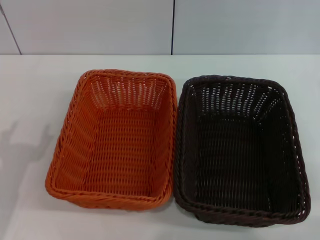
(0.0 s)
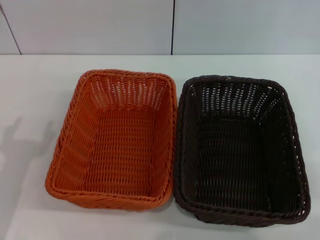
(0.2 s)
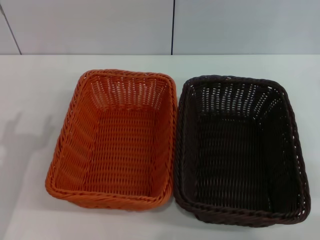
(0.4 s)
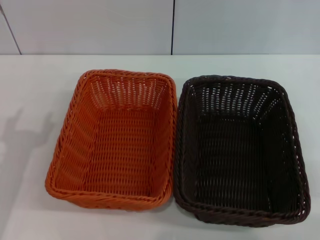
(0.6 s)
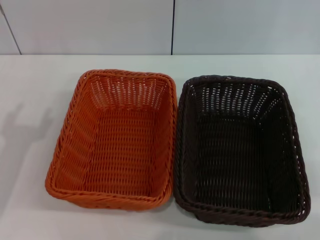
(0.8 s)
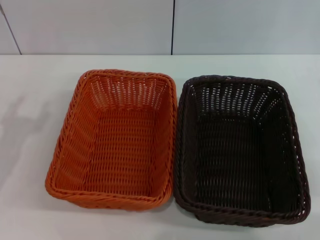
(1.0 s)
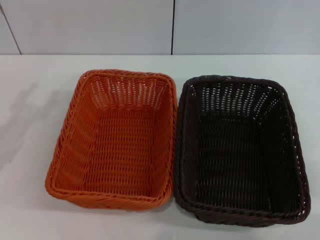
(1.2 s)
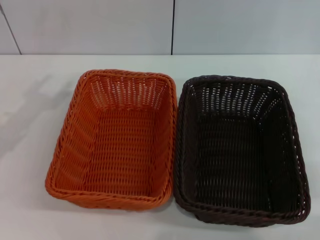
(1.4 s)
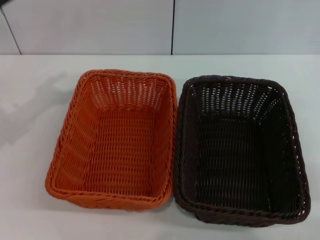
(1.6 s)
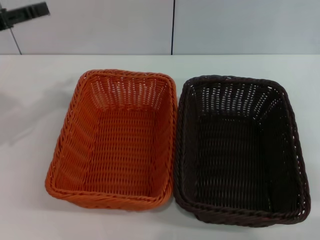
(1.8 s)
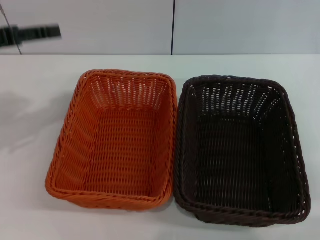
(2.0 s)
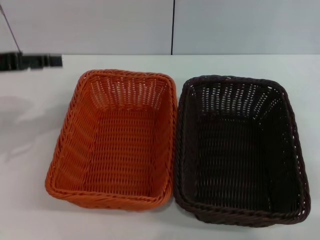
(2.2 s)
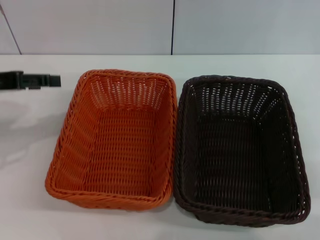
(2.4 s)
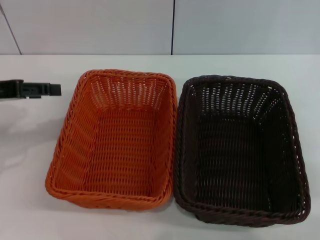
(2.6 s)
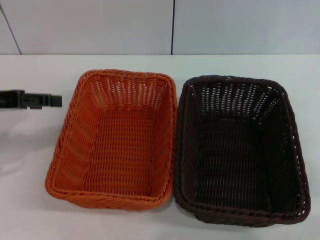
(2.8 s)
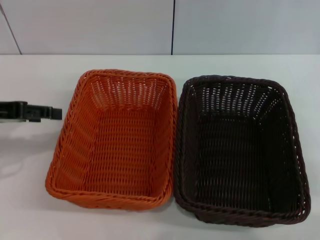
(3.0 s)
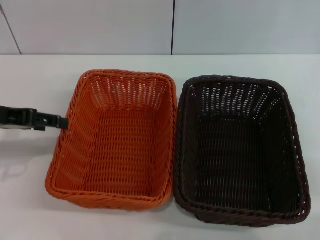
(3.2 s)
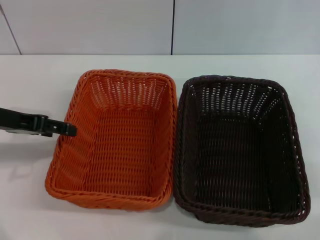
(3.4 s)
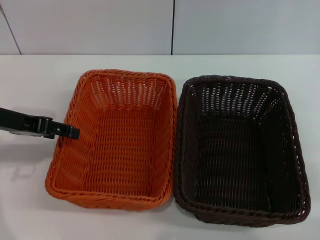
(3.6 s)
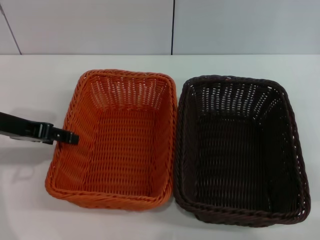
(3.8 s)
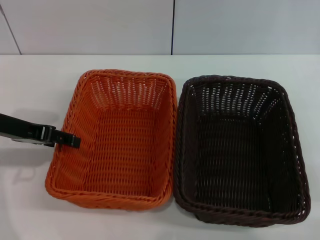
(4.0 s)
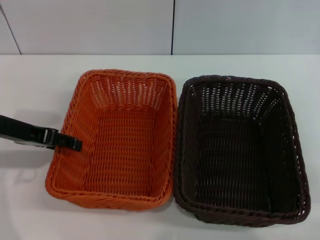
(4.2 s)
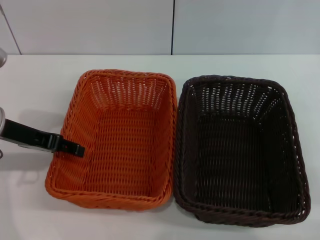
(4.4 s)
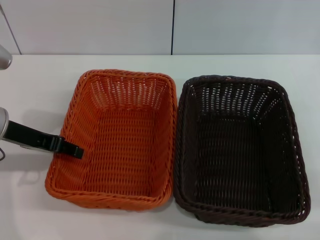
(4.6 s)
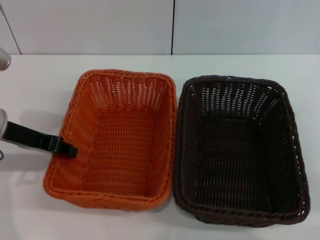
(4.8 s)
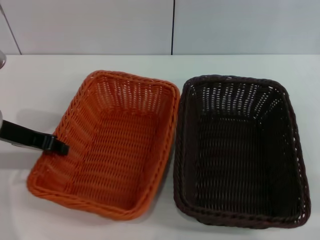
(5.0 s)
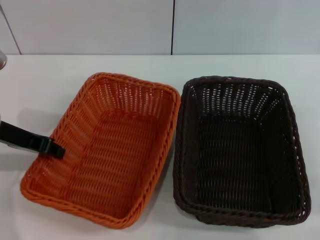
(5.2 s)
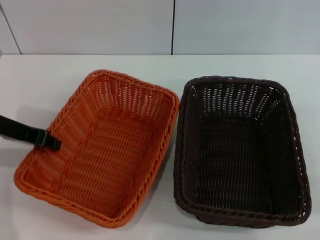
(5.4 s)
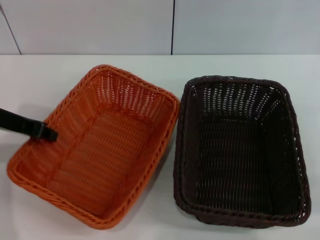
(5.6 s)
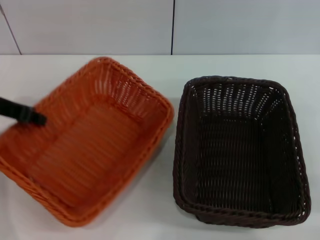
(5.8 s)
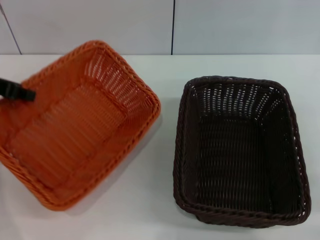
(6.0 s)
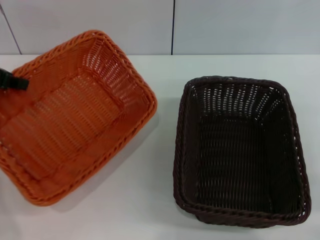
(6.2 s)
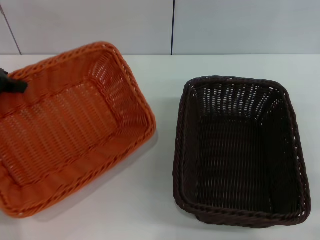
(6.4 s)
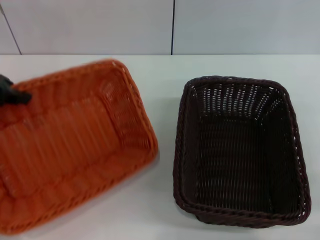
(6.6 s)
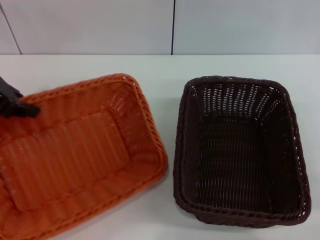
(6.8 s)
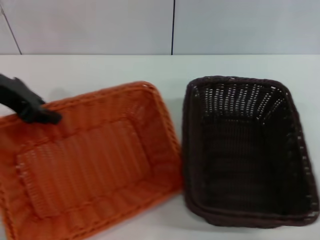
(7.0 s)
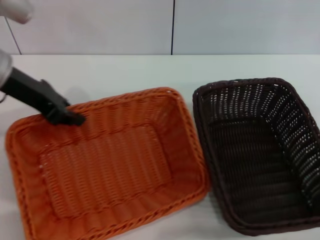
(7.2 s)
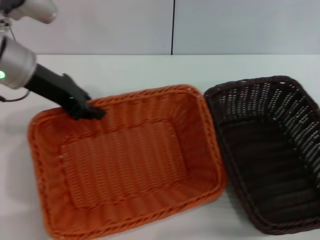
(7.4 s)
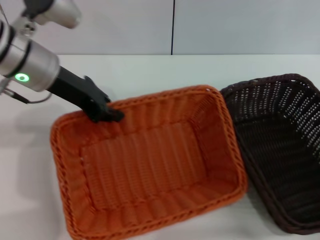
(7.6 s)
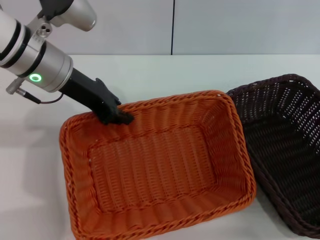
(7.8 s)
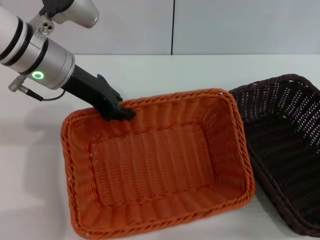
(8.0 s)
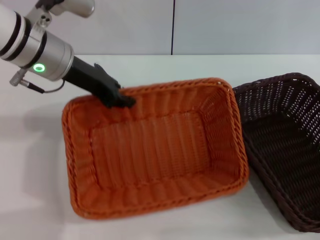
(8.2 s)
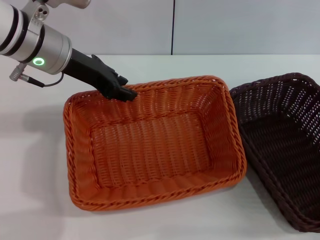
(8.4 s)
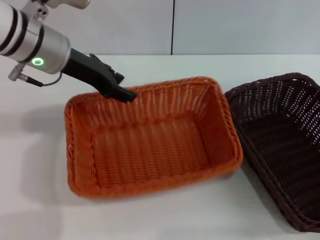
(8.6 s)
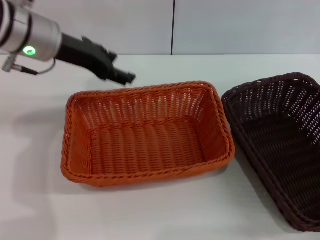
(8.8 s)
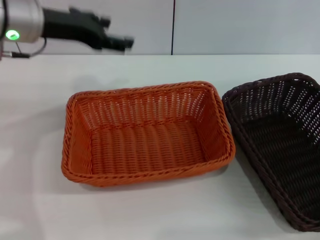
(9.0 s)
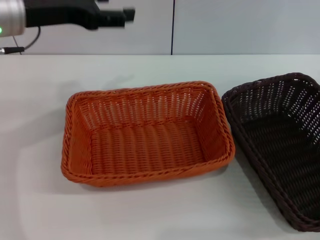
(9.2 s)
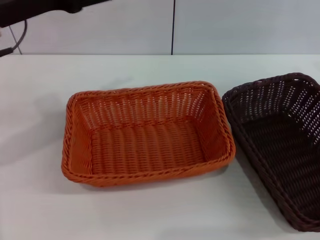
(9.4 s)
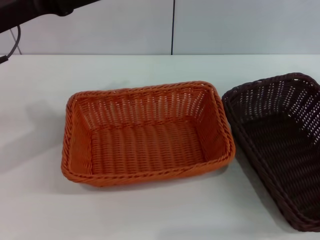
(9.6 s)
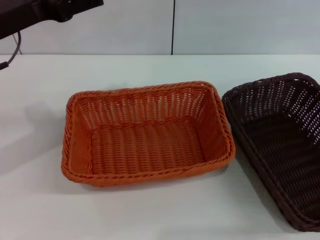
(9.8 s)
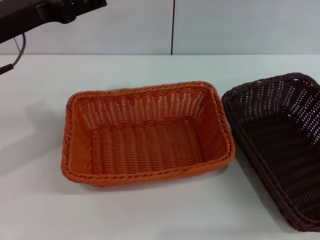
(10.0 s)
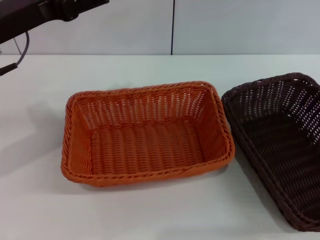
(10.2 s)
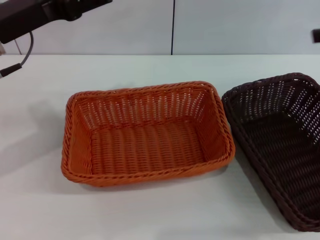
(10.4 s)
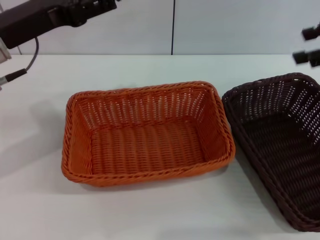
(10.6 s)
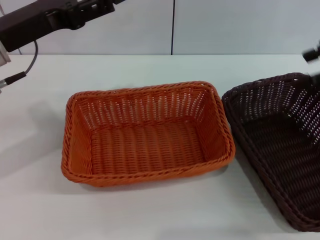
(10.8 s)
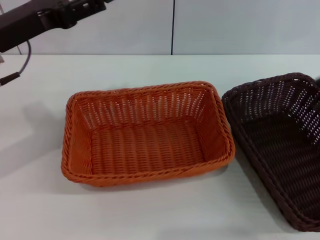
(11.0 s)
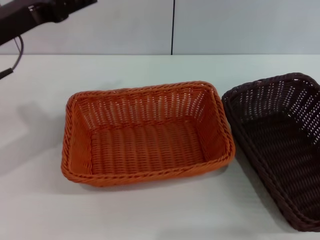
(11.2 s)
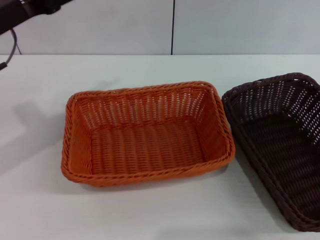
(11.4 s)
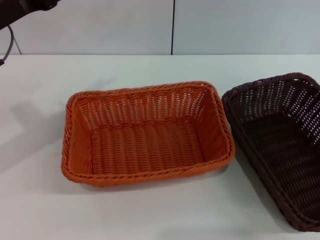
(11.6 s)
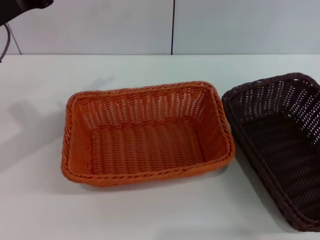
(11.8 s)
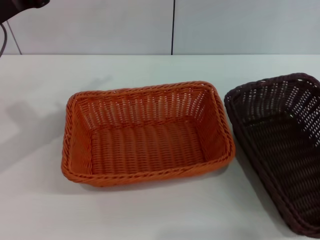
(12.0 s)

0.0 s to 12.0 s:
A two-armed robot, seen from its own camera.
Step, 0.0 to 6.2 s: Pick up the light basket with the left gripper.
Step, 6.4 to 8.6 s: Place the light basket in the center of view with the left gripper.
3.0 to 4.4 s: The left gripper is displaced to the right by roughly 5 cm.
4.4 to 6.0 s: The left gripper moves upward, about 10 cm, and closes up.
6.0 to 7.6 s: The left gripper moves to the right, approximately 10 cm.
7.6 to 9.0 s: The left gripper opens its fingers.
9.0 to 10.4 s: The left gripper moves backward, roughly 5 cm. Meanwhile the right gripper is displaced upward by some 15 cm.
10.4 to 12.0 s: The right gripper goes approximately 10 cm downward and to the left.

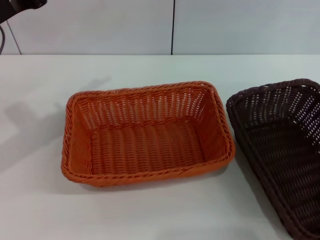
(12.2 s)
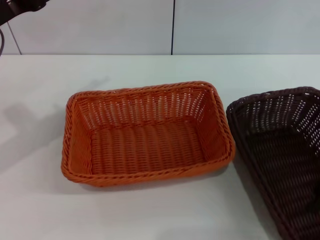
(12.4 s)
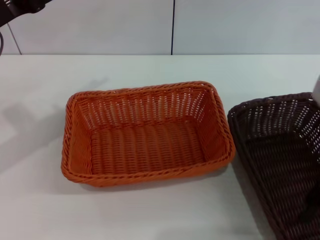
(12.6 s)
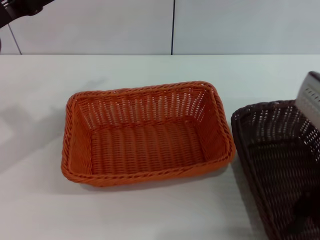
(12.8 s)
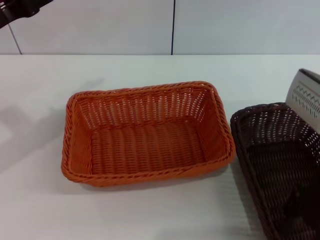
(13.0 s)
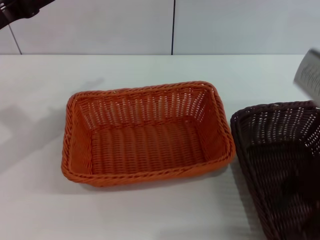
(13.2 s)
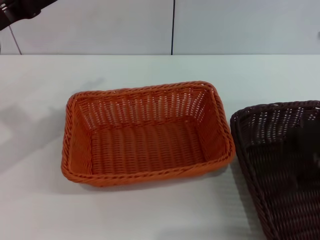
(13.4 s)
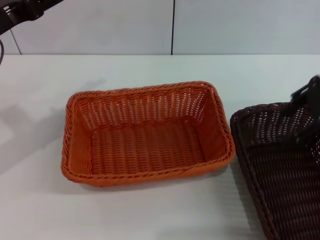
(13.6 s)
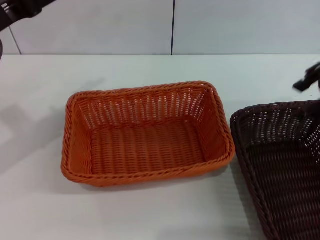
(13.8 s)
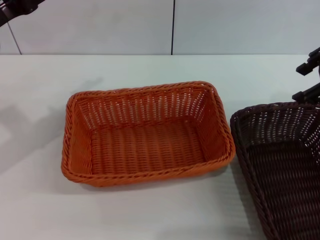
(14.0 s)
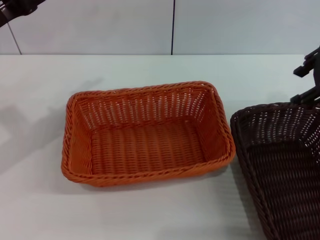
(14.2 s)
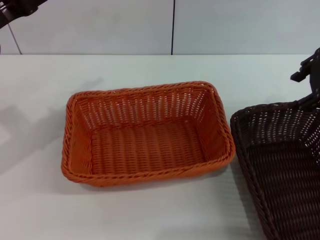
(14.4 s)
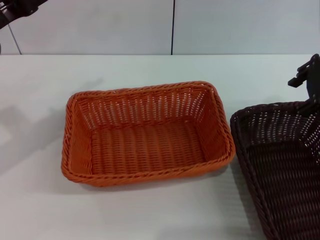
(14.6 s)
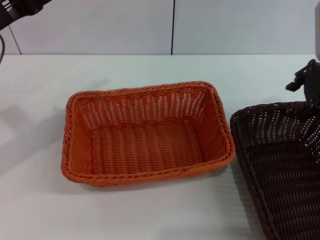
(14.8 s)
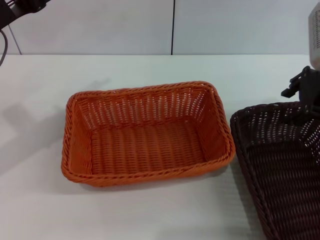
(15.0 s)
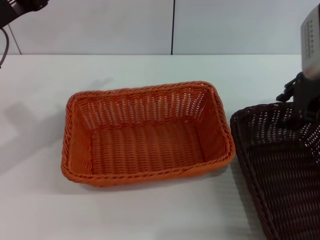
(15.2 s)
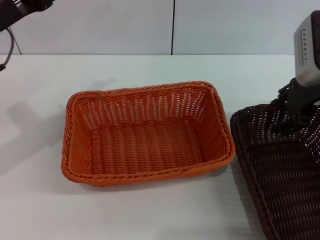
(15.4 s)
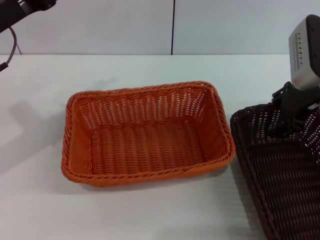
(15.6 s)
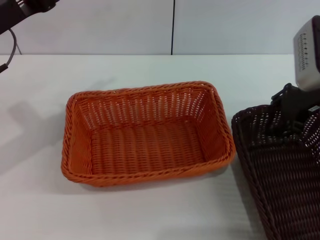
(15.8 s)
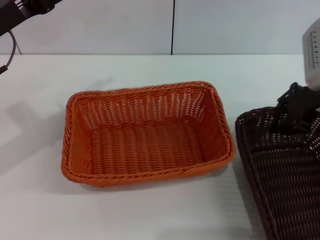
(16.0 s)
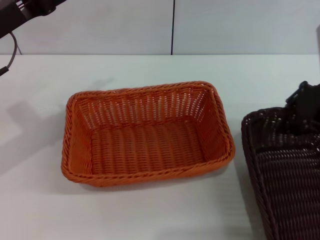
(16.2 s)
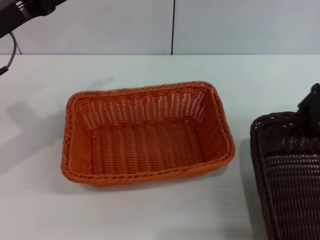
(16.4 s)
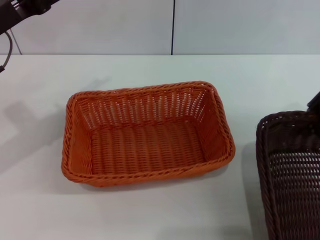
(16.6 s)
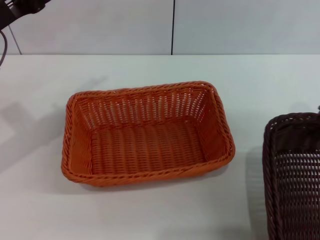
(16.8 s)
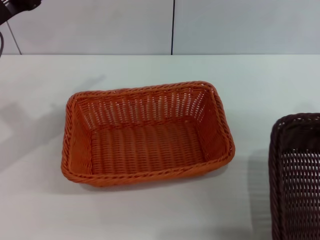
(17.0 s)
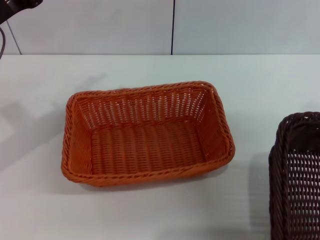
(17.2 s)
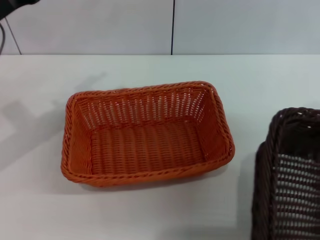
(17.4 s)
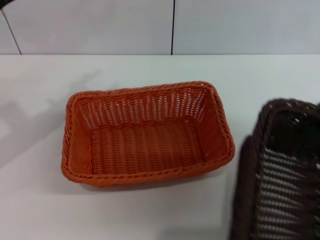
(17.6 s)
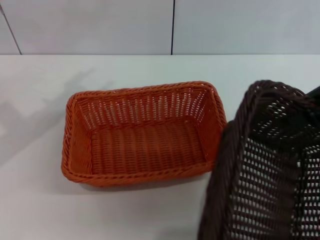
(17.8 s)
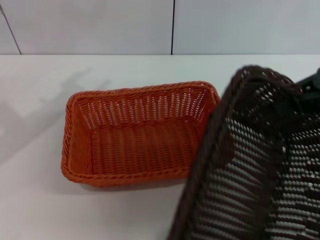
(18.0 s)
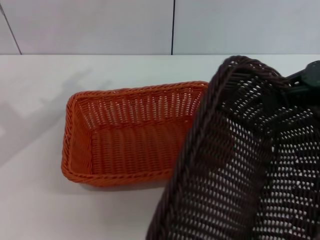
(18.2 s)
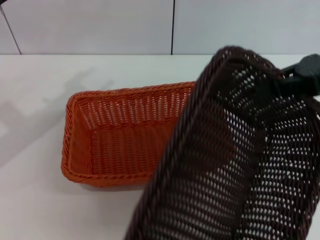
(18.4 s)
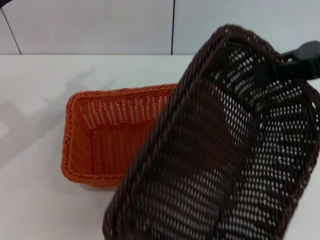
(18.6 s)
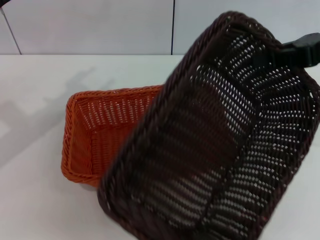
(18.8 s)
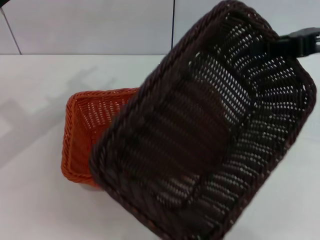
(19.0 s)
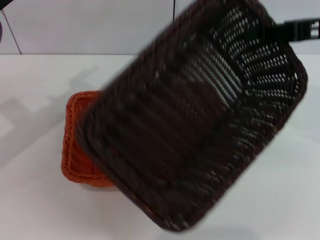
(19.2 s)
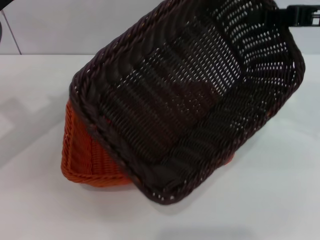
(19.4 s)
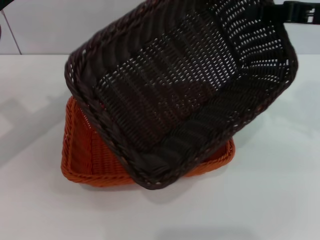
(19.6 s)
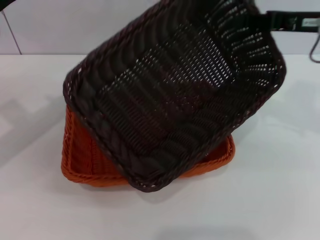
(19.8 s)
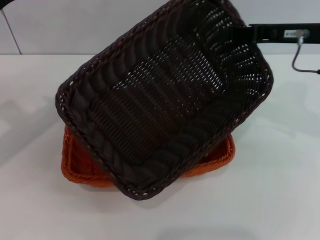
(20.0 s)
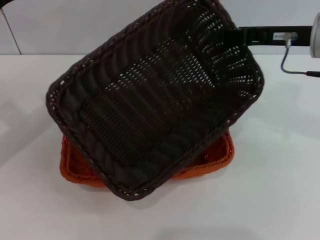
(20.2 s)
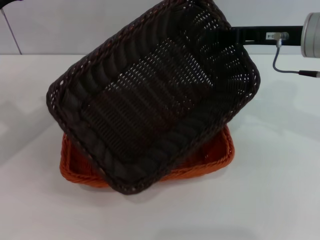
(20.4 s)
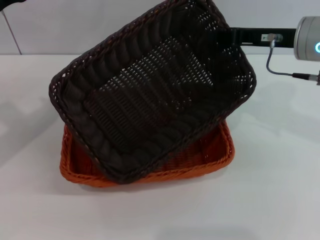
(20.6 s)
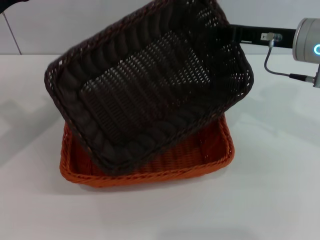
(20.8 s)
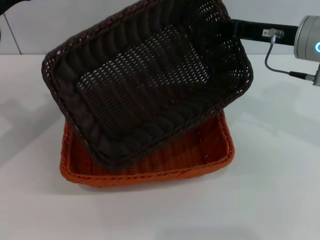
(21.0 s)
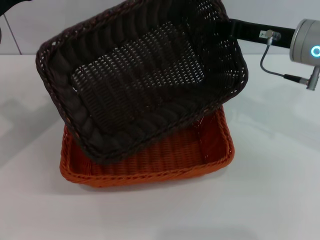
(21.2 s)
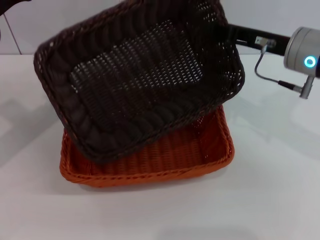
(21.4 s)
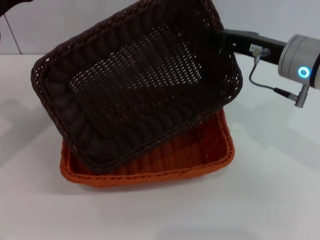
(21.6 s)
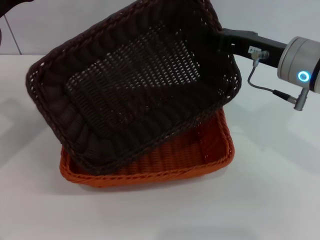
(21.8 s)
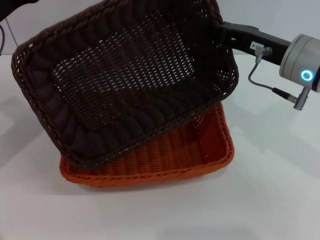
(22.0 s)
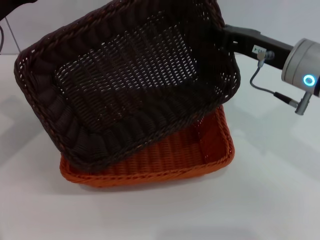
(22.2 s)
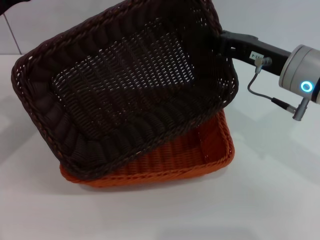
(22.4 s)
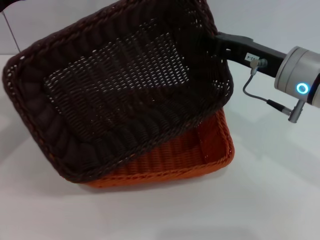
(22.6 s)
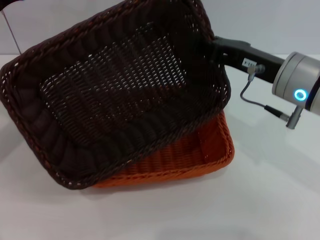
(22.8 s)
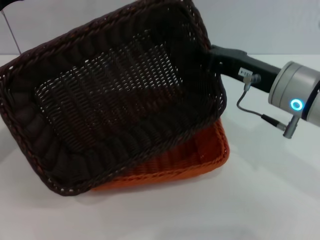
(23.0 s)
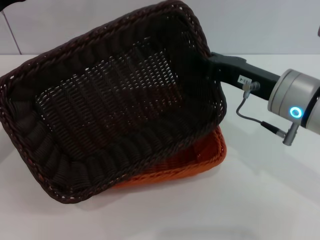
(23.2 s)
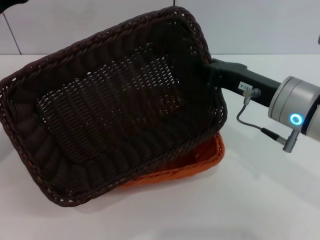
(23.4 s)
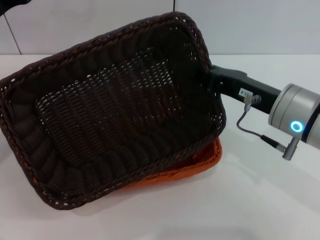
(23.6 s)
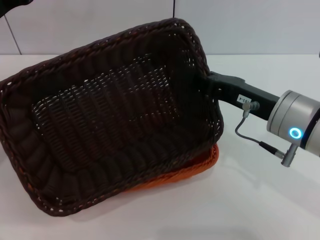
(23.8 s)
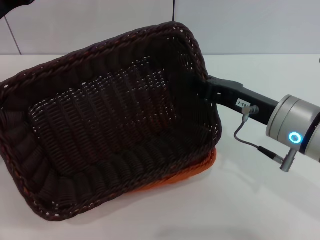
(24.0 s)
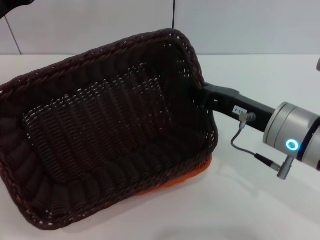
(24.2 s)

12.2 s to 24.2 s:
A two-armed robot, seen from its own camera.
Step, 12.2 to 16.0 s: Pick up the dark basket with the right gripper.
12.2 to 13.8 s: The right gripper shifts some 10 cm upward.
13.8 to 15.2 s: The right gripper is displaced downward by roughly 10 cm.
15.2 to 16.6 s: The right gripper shifts by about 5 cm, and closes up.
18.2 to 19.8 s: The right gripper moves about 5 cm.
19.8 to 21.2 s: The right gripper ends up approximately 5 cm from where it was.
21.2 to 22.6 s: The right gripper moves backward, approximately 5 cm.
22.6 to 24.2 s: The right gripper shifts approximately 5 cm backward.
